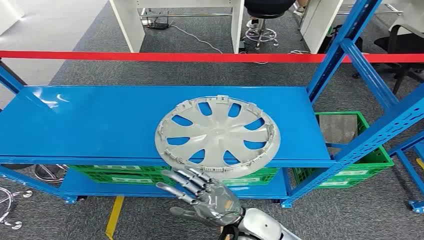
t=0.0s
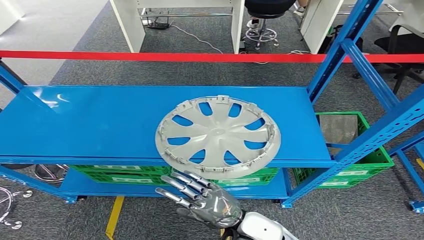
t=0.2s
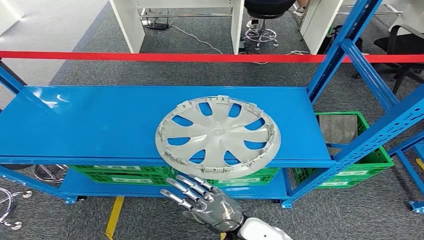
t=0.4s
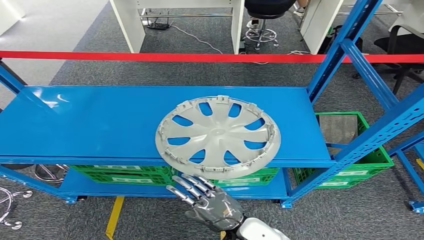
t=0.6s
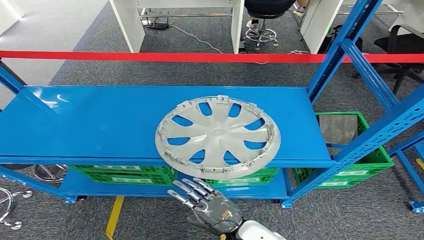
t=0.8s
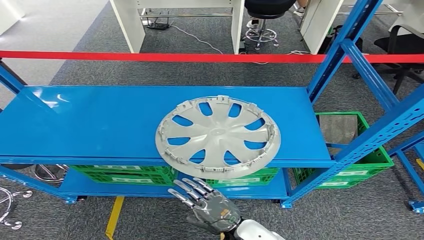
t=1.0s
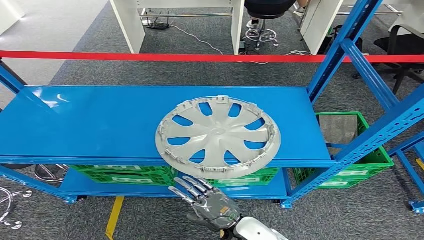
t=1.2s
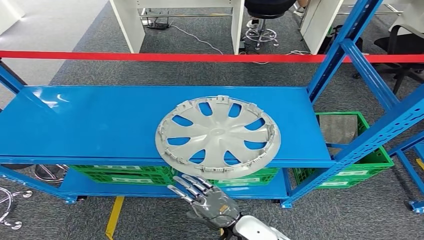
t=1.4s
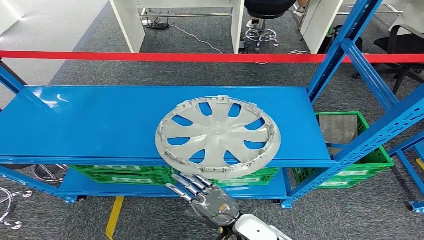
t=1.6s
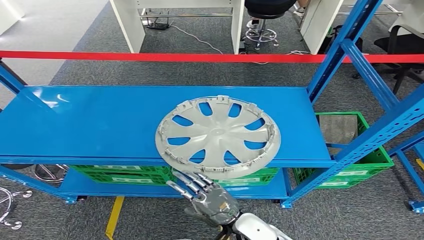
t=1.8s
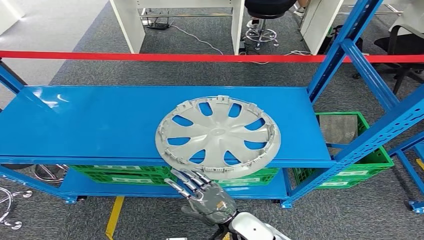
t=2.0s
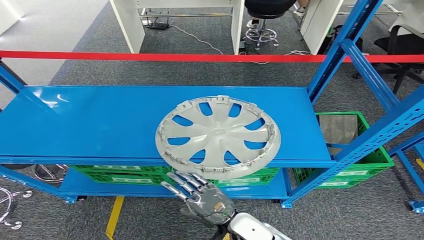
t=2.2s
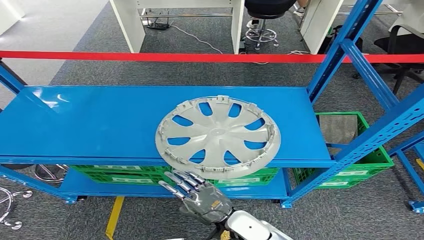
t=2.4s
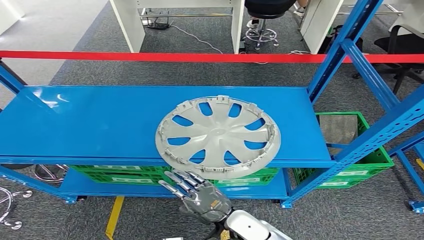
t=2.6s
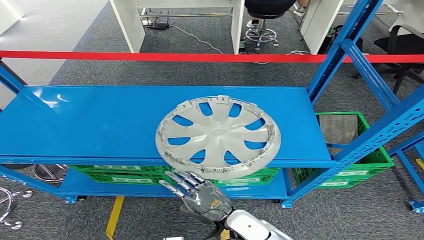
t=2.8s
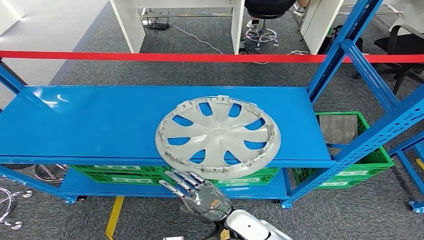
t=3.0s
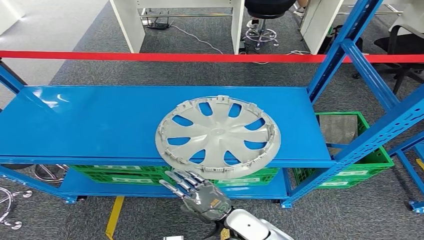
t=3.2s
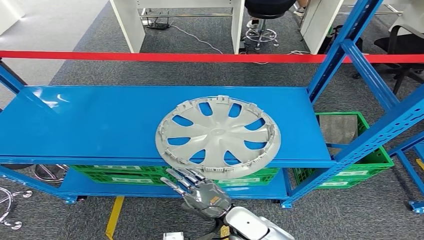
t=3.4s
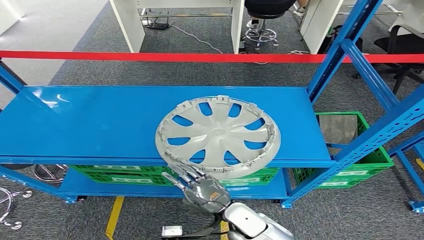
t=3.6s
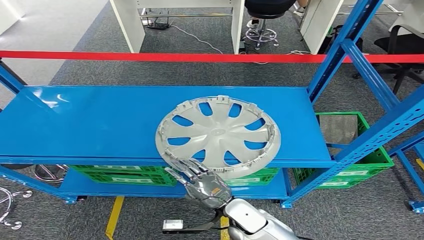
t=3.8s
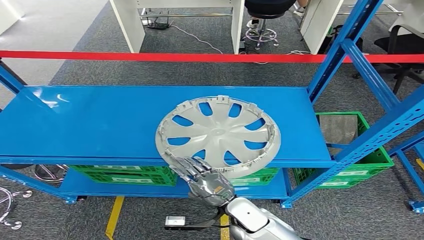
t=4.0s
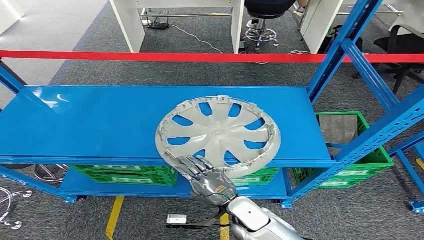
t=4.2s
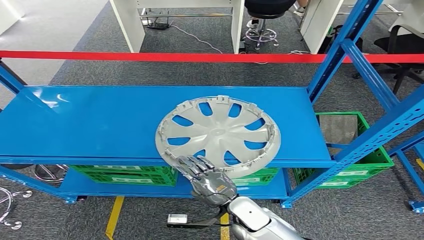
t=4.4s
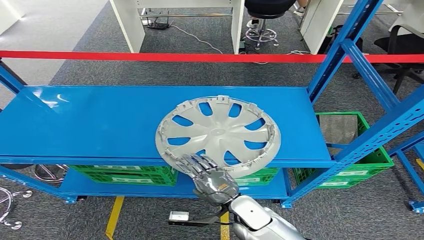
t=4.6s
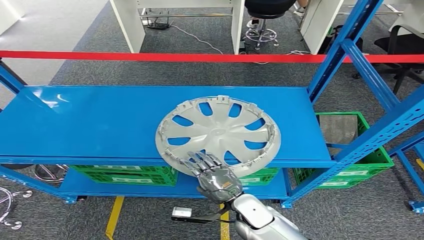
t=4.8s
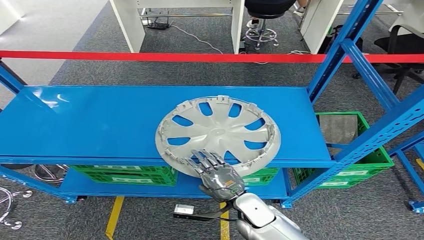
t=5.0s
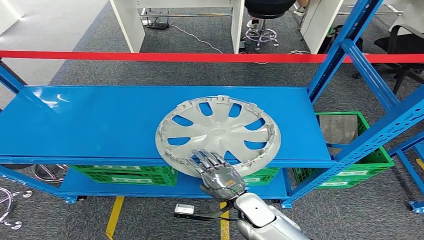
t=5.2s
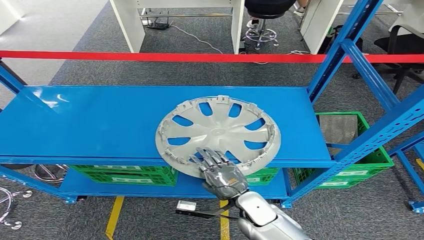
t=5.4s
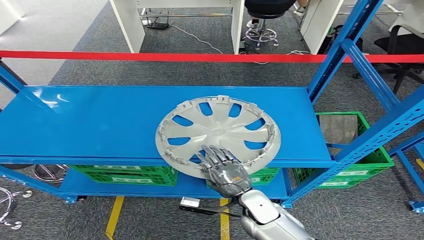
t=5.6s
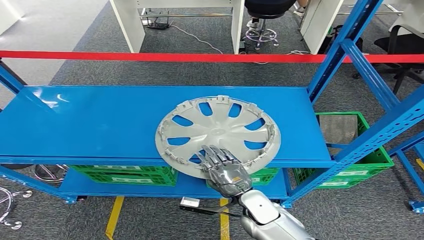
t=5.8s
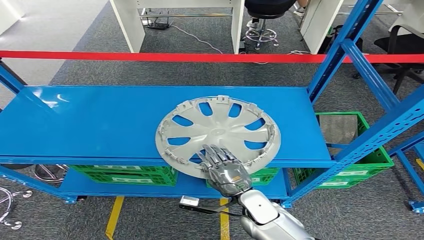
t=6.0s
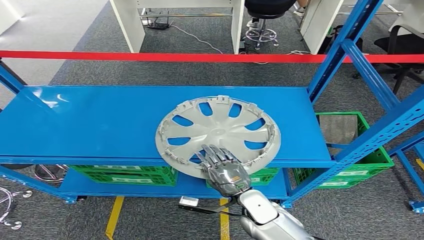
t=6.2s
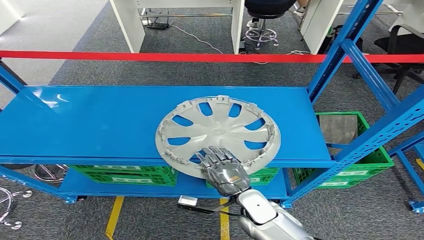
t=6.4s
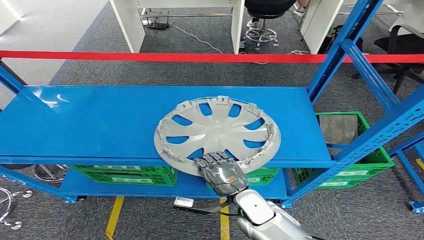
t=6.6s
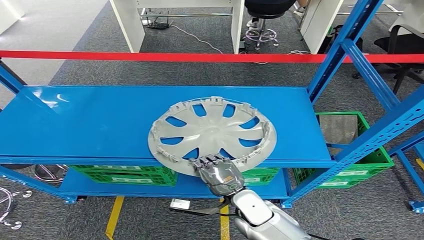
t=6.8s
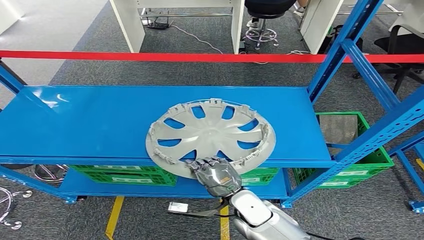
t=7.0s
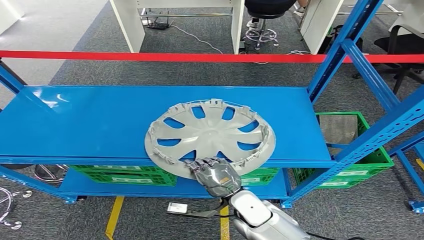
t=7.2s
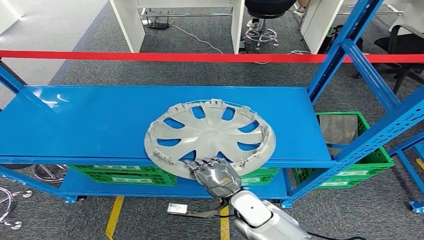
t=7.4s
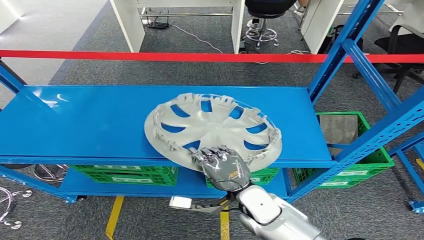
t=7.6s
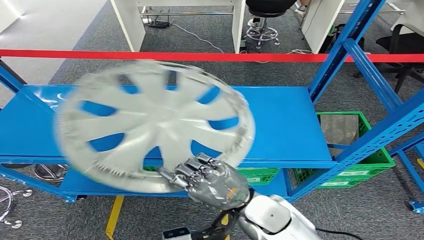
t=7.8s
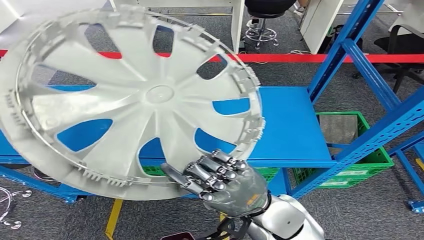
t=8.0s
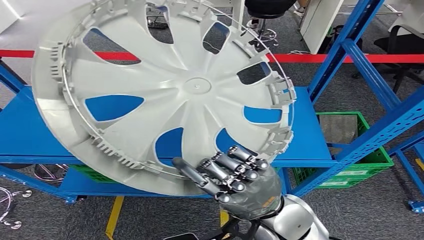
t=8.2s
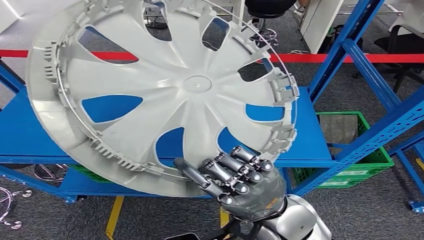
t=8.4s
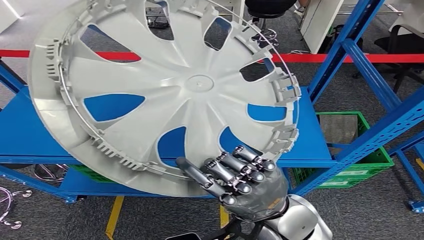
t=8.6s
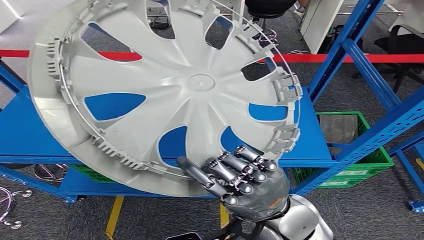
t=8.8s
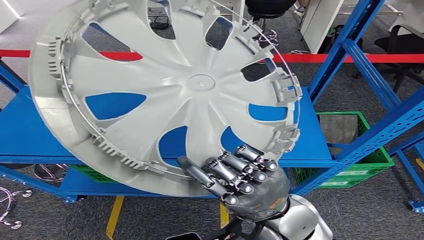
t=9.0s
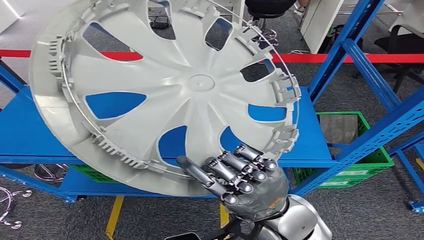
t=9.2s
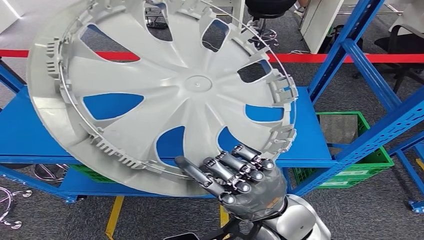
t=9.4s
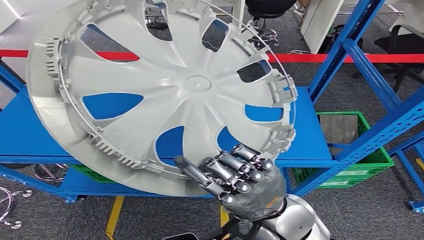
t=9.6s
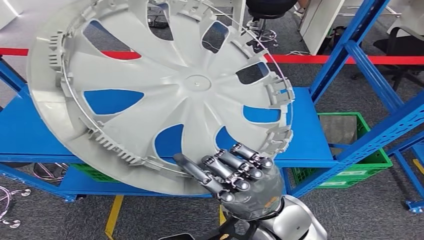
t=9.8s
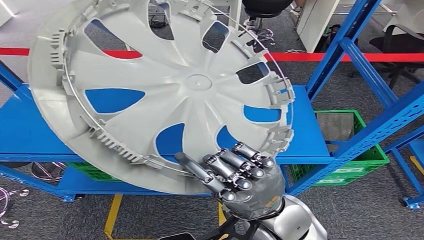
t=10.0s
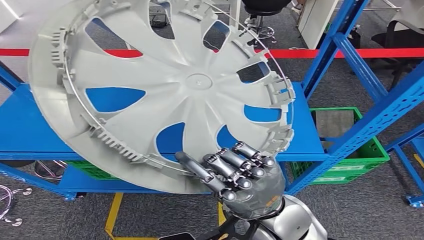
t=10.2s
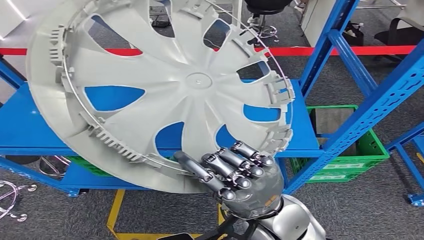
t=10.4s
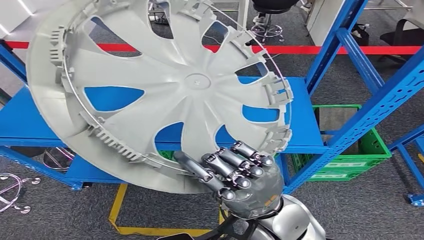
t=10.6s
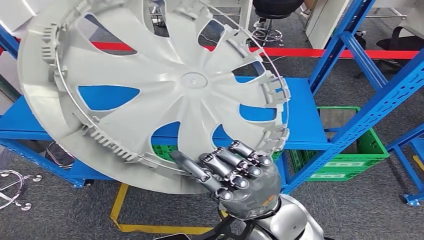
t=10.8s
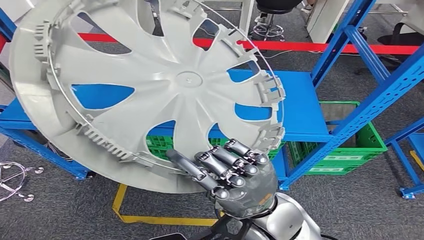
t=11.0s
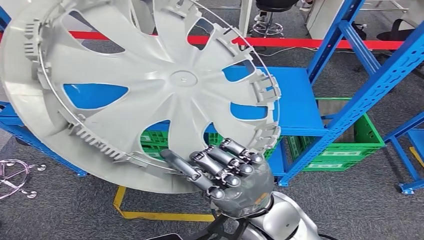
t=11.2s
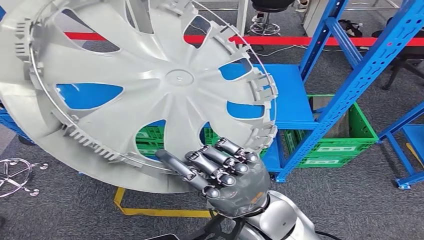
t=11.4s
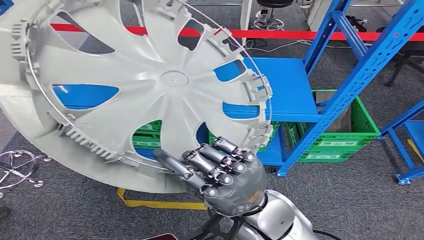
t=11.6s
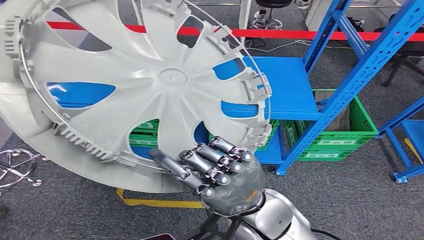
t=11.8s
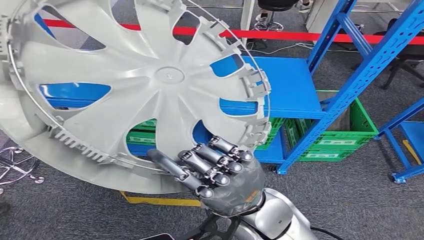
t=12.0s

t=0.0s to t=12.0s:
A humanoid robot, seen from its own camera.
Step, t=0.0s to t=8.8s: Take small components from the rack.
t=1.6s to t=4.4s: The hands stay close to where they were, moving slightly.
t=4.4s to t=6.0s: There are only small adjustments of the hands.
t=6.0s to t=7.6s: The right hand goes roughly 5 cm upward.

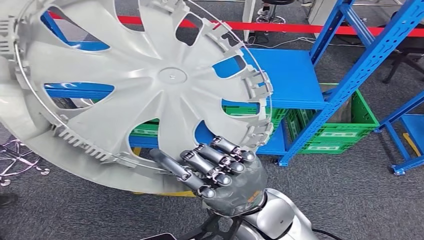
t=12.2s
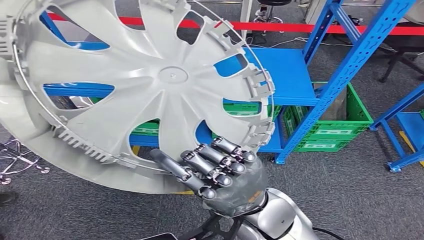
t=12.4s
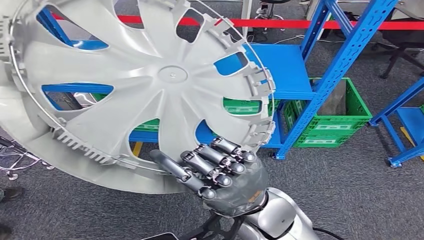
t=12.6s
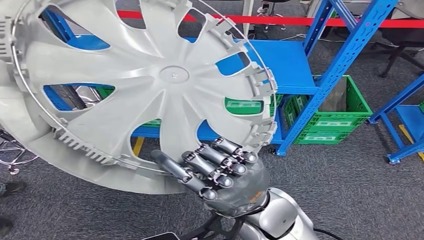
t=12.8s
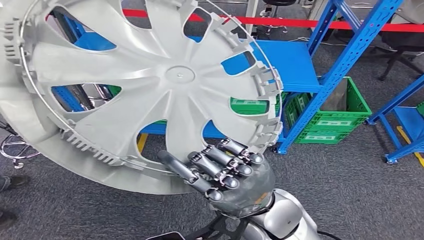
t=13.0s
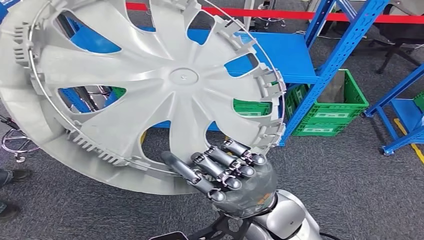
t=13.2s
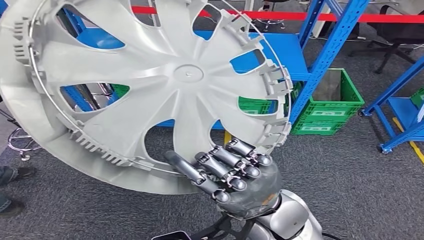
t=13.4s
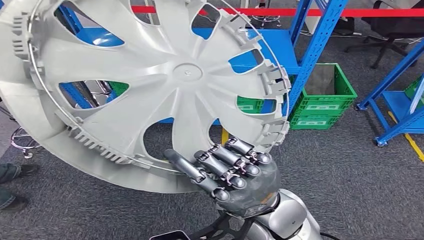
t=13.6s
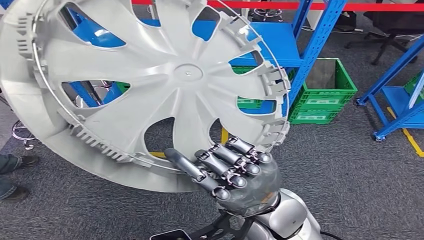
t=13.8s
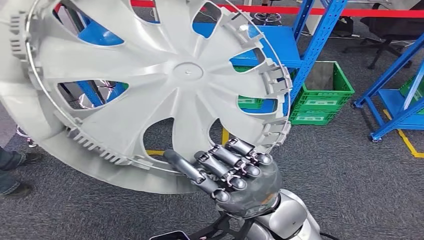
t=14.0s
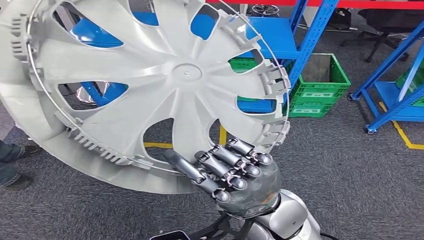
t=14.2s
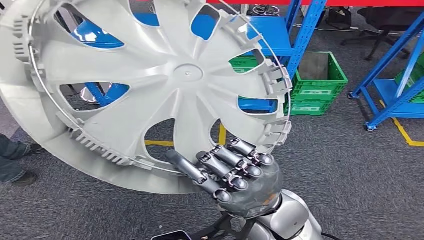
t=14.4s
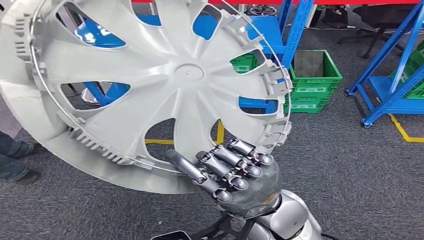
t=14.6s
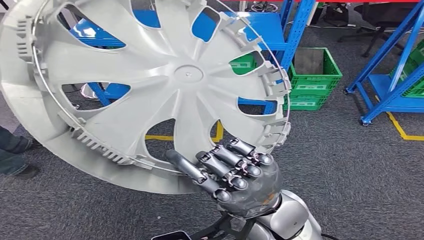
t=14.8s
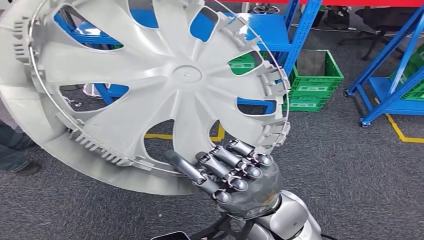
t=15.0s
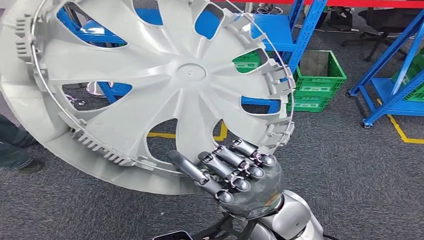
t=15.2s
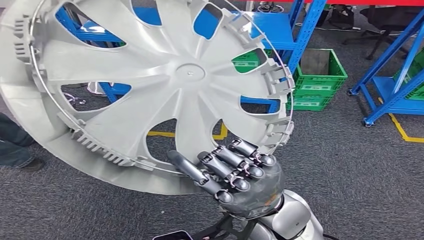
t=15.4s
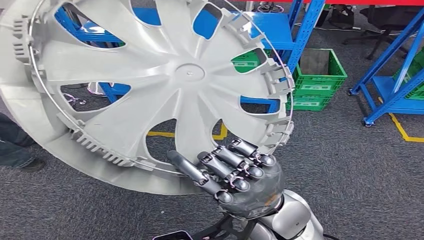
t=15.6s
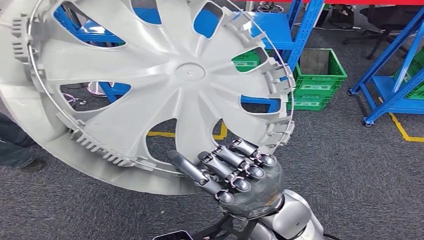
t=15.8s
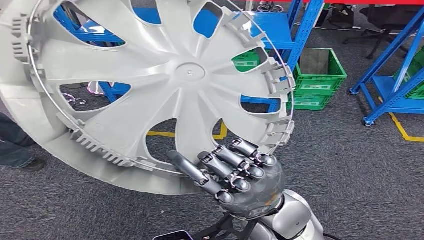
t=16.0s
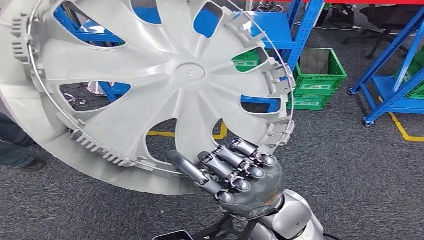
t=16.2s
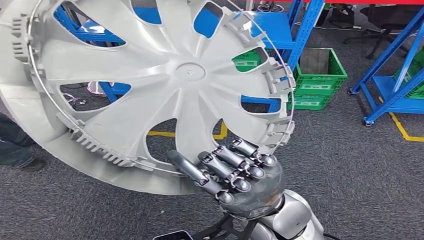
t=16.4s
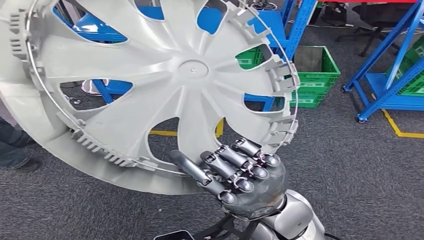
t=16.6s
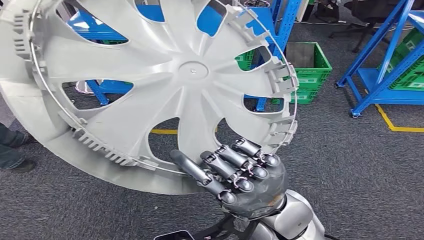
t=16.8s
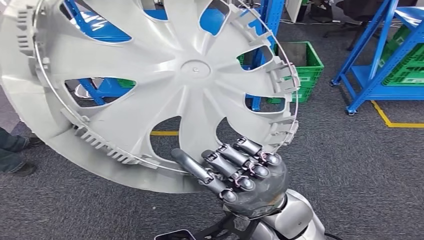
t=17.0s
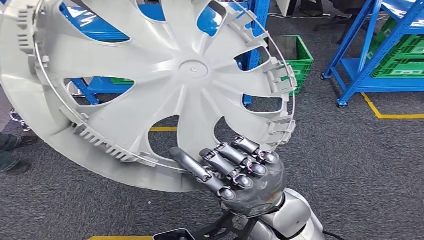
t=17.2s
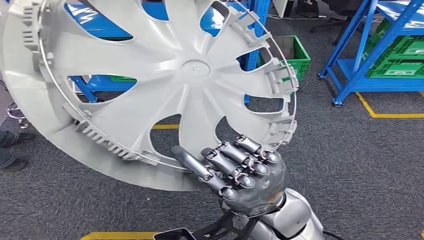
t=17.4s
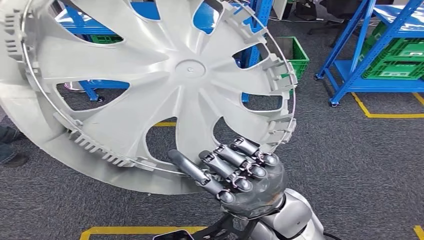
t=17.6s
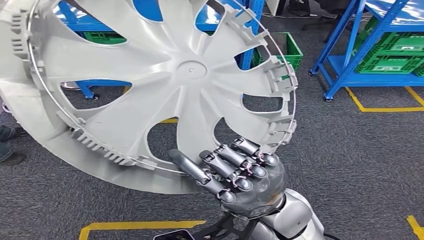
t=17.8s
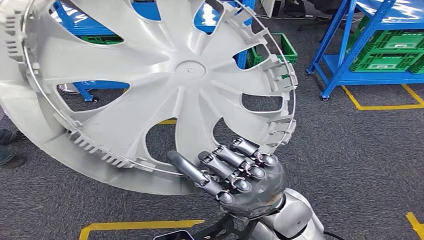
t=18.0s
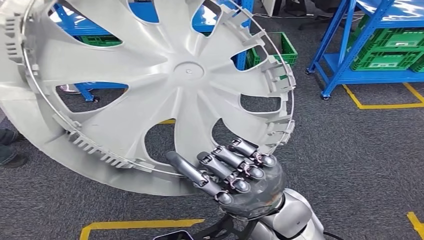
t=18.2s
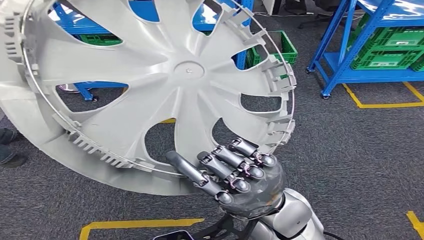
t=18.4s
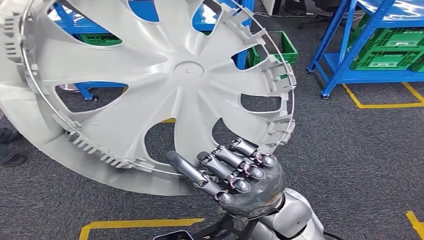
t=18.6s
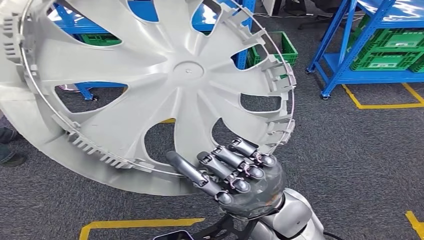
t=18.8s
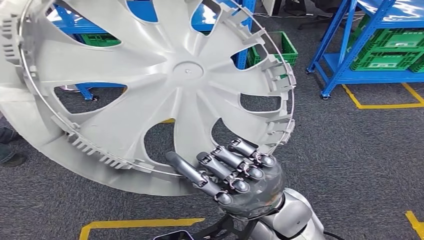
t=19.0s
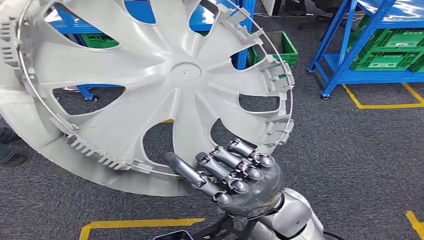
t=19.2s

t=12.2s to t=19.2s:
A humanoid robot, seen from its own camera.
t=15.0s to t=16.4s: The two hands keep their place.
